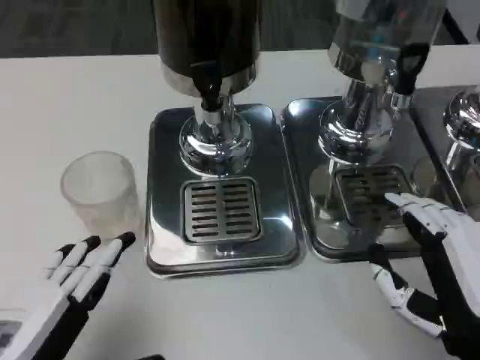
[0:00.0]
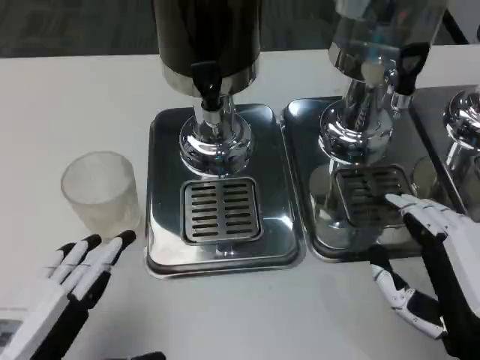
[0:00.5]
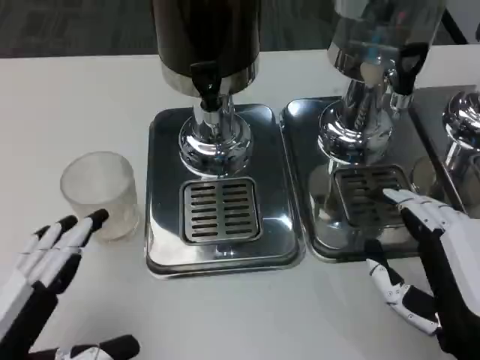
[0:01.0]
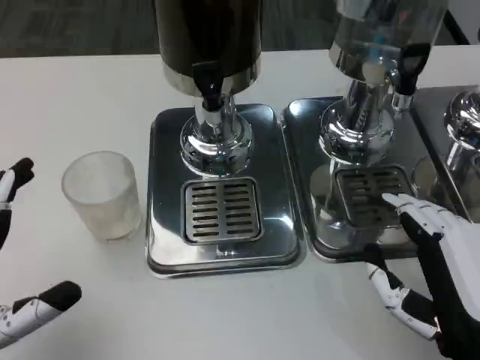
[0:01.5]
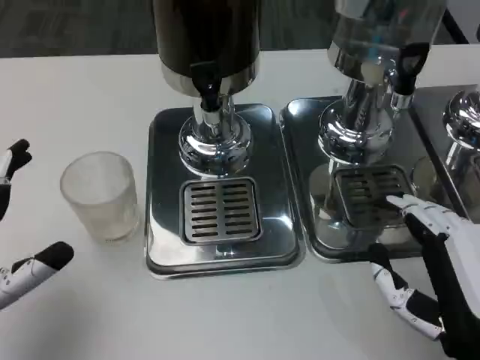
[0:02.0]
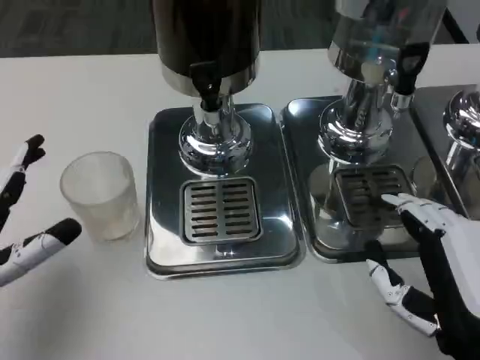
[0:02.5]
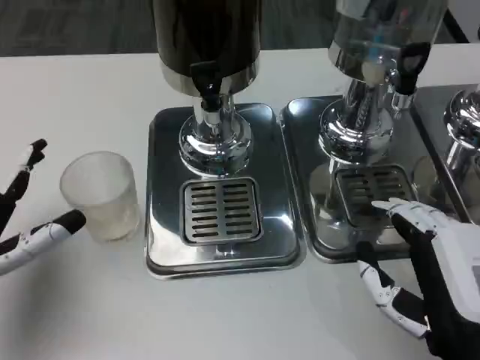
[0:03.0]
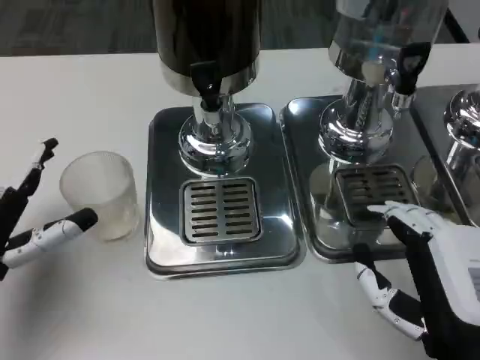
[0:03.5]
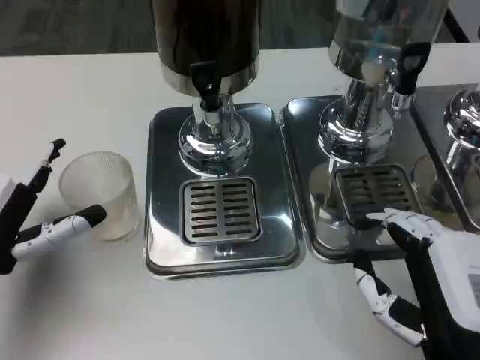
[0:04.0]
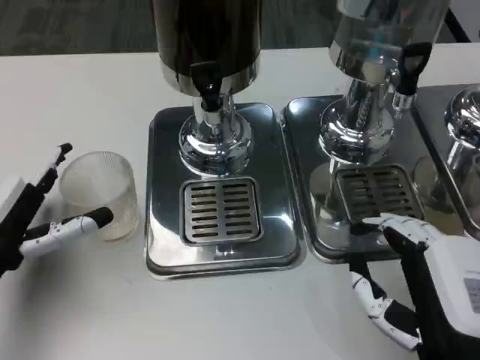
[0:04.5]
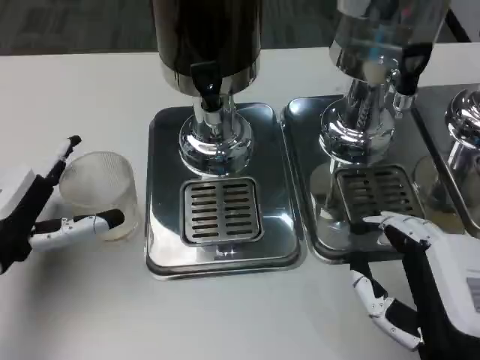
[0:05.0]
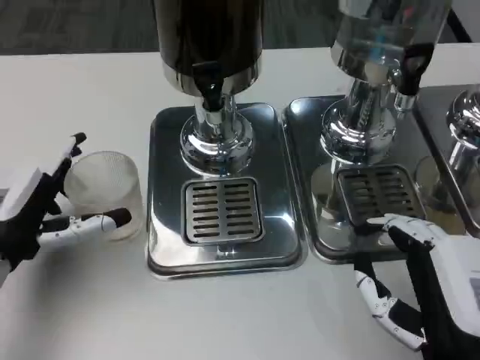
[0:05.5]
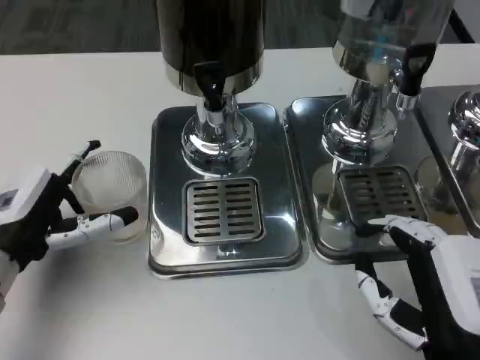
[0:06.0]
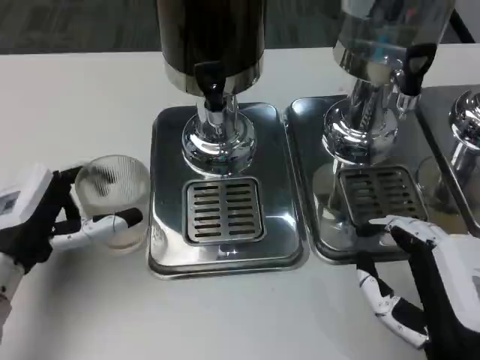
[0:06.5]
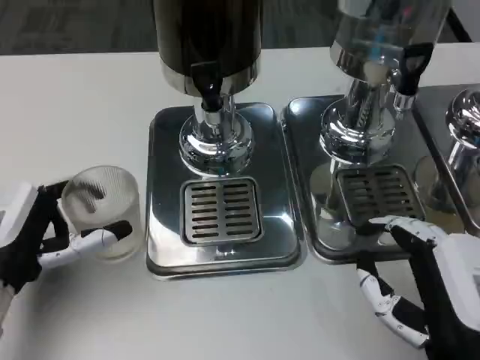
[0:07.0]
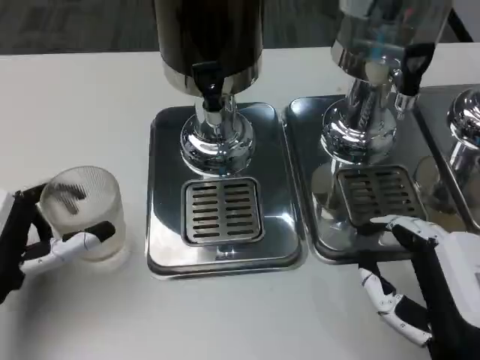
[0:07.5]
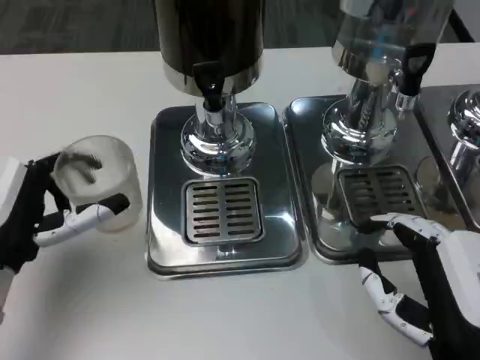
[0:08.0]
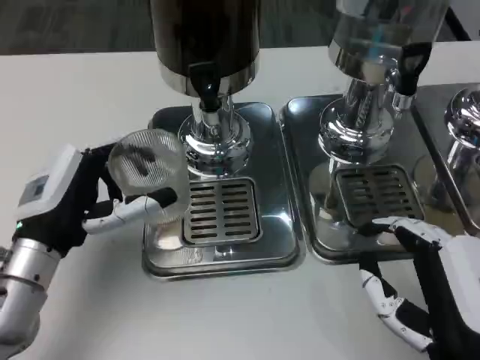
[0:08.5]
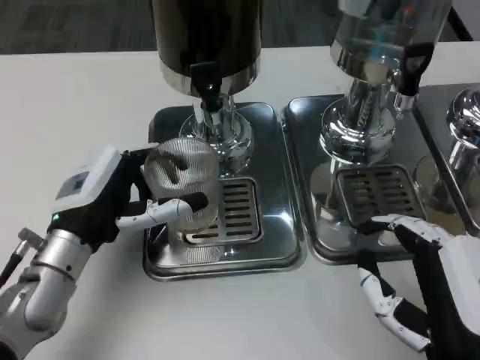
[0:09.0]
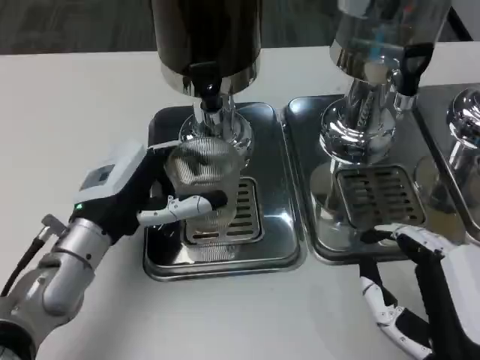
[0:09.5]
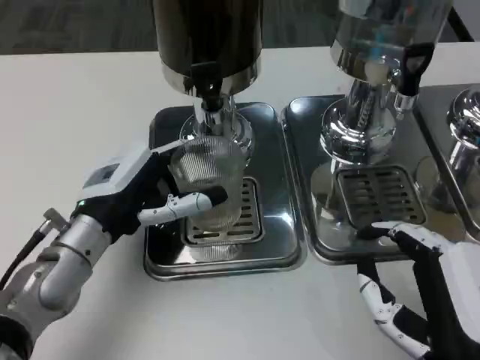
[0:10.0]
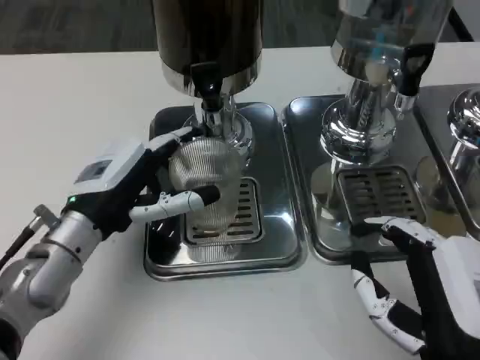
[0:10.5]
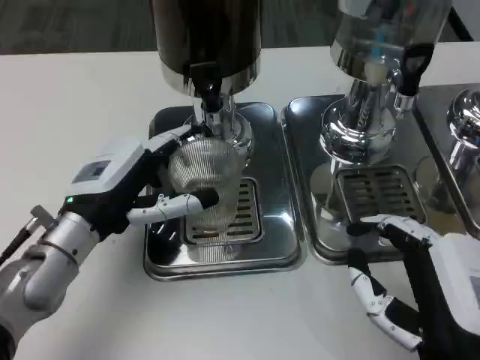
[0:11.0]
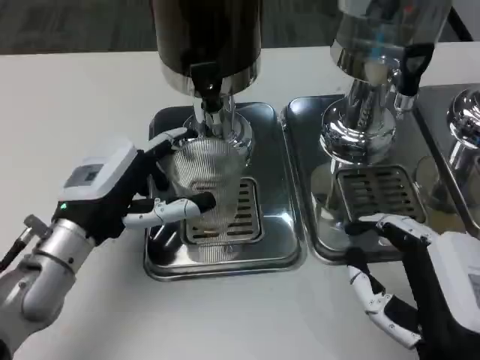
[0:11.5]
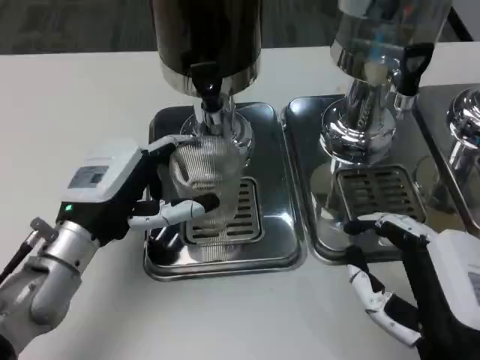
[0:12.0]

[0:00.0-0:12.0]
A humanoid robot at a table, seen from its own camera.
Task of the whole recording: Grasp the cup under the faucet to collect the drink, then remove the cup.
0:00.0 to 0:02.0: The left hand heads forward, covering some 5 cm.
0:02.0 to 0:04.0: The left hand shifts about 10 cm forward.
0:06.0 to 0:08.0: The hands stay close to where they were, moving slightly.
0:08.0 to 0:10.0: The left hand goes roughly 10 cm to the right and forward.
0:10.0 to 0:12.0: The hands stay close to where they were, moving slightly.

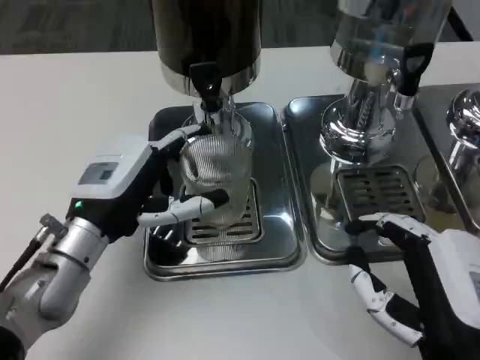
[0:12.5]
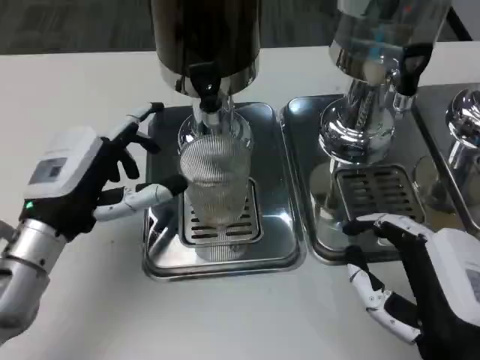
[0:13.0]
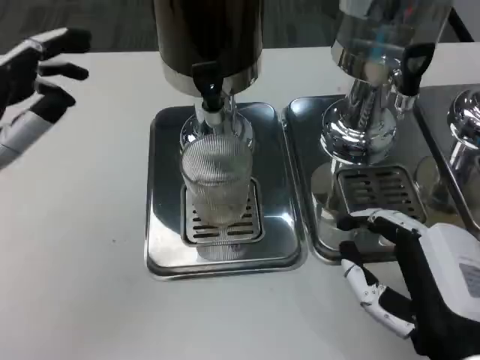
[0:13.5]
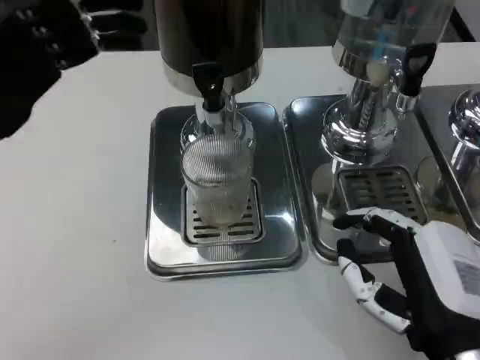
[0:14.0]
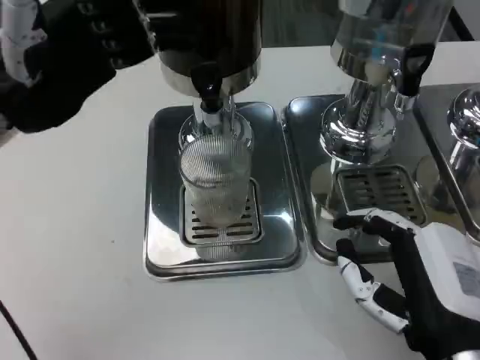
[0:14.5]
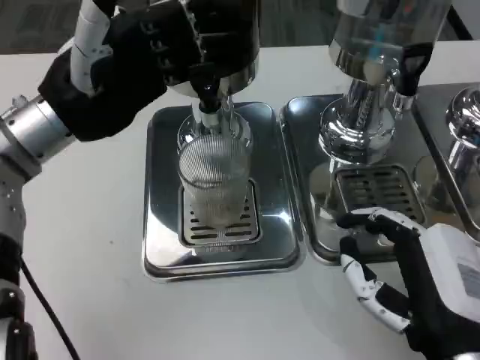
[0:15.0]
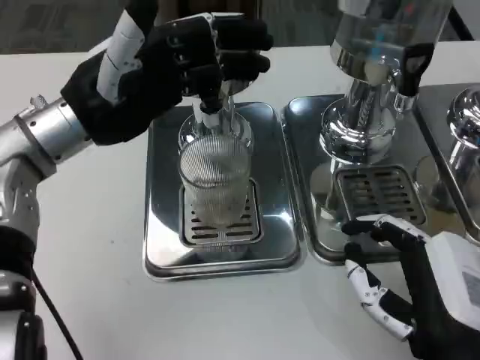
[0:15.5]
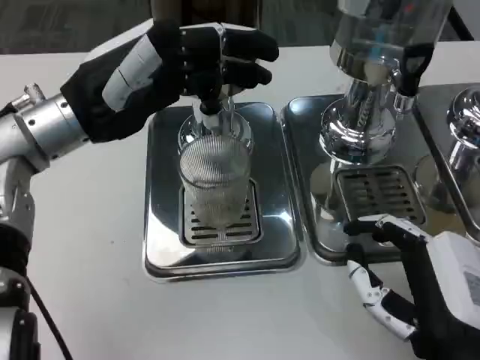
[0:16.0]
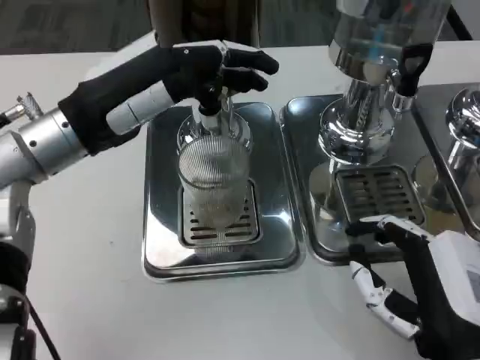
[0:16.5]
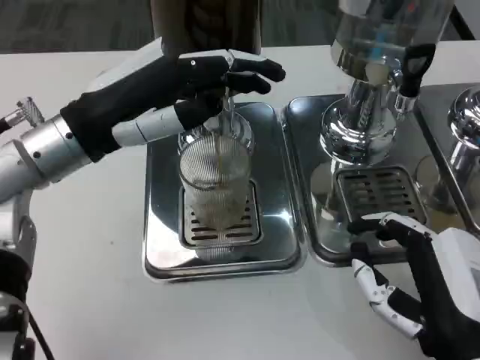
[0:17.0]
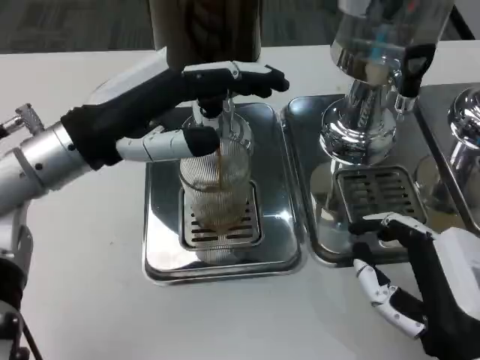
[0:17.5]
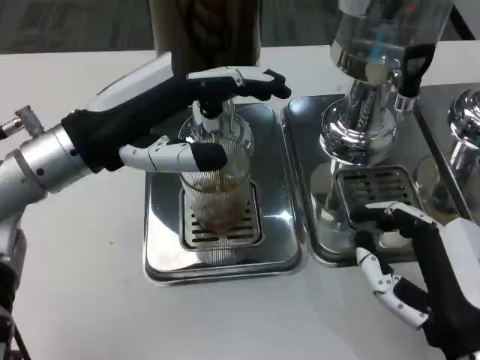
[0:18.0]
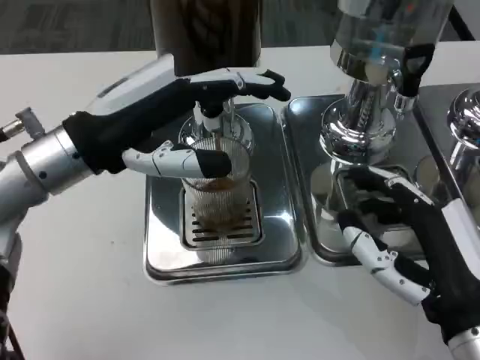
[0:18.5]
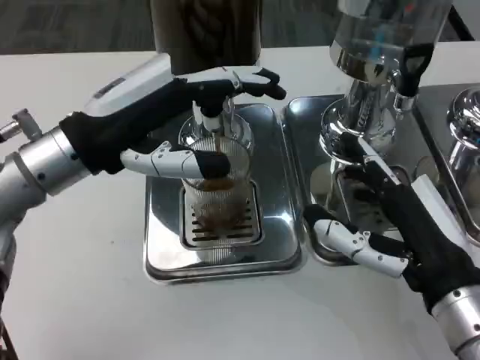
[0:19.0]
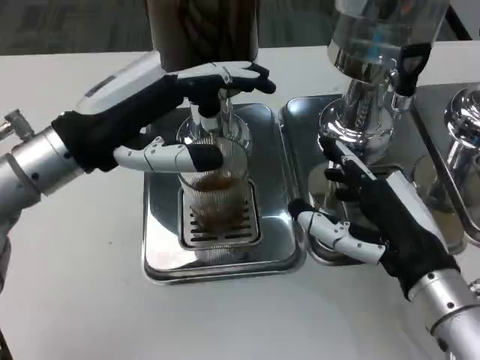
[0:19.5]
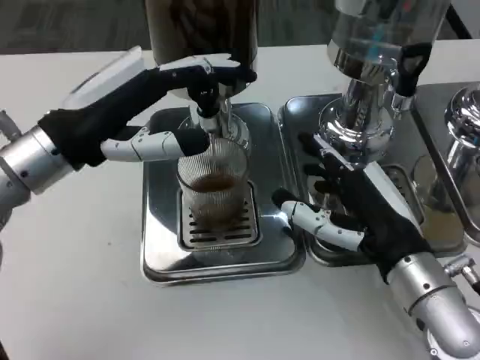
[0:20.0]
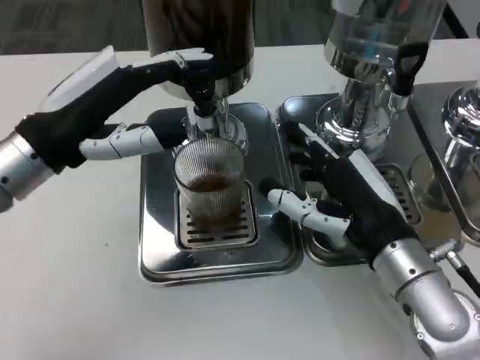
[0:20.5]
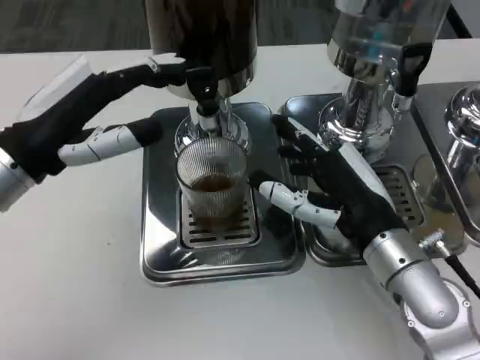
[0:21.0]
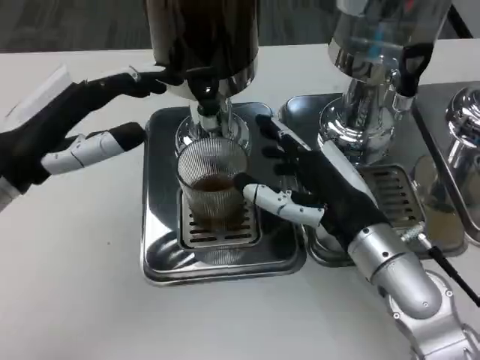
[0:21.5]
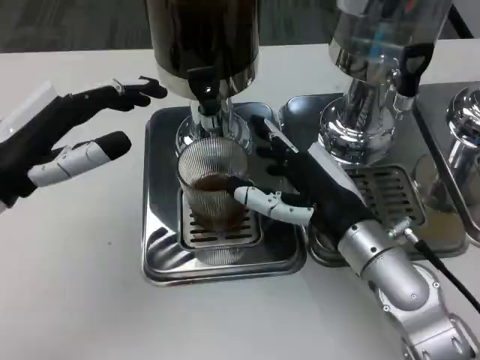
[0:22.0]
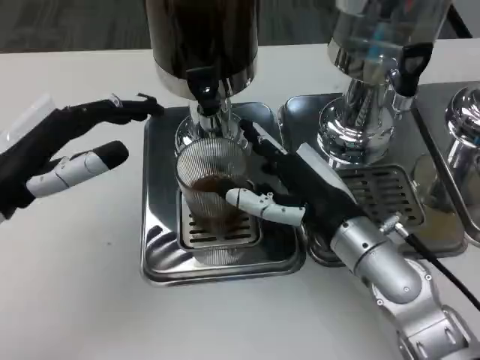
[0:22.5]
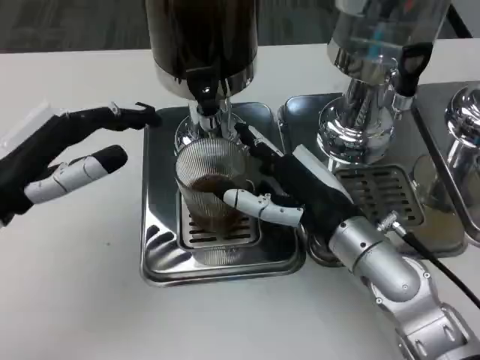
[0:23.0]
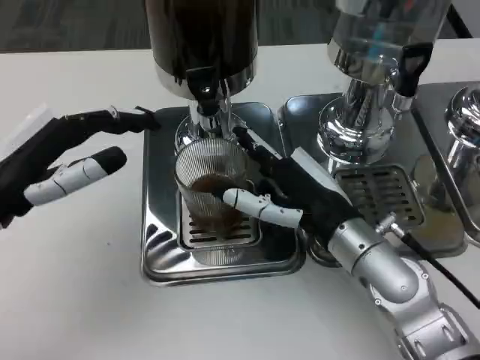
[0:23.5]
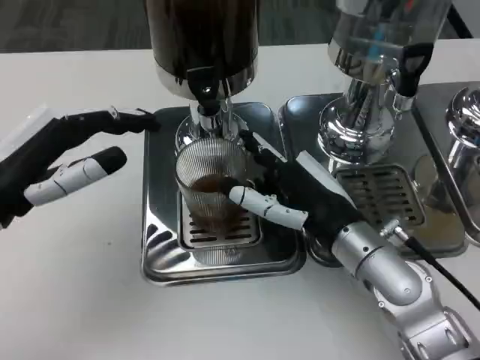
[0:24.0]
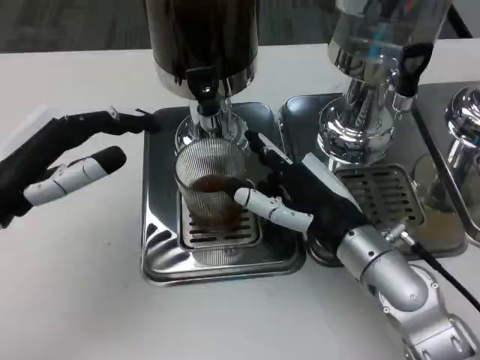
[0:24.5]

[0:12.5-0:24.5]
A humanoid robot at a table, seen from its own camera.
Task of the whole recording: Grasp the cup under the faucet to collect the drink, then remove the cup.
0:12.5 to 0:14.5: The left hand heads upward and to the left, covering approximately 15 cm.
0:14.5 to 0:16.5: The left hand shifts by roughly 5 cm.
0:18.5 to 0:20.5: The right hand heads forward, covering approximately 10 cm.
0:20.5 to 0:22.5: The left hand changes place by roughly 5 cm.
0:22.5 to 0:24.5: The two hands keep their place.

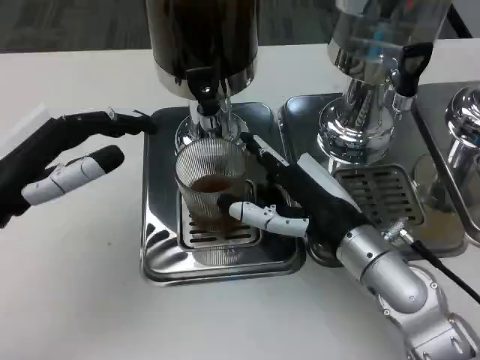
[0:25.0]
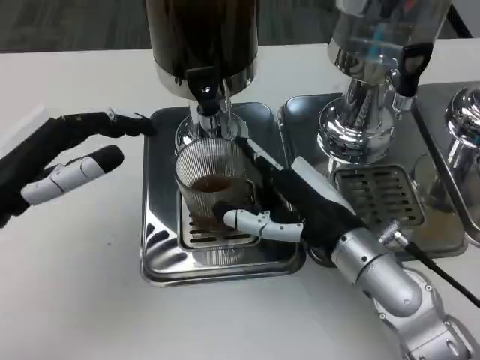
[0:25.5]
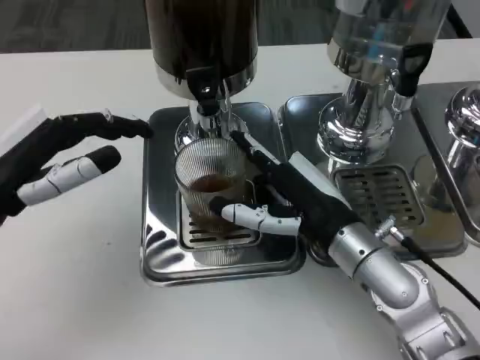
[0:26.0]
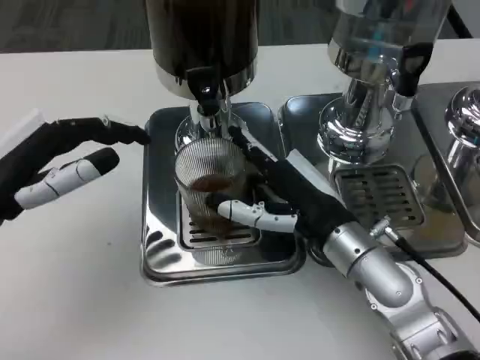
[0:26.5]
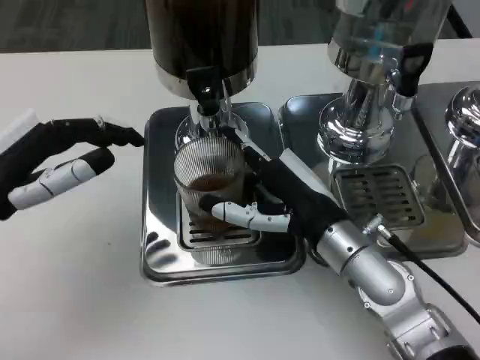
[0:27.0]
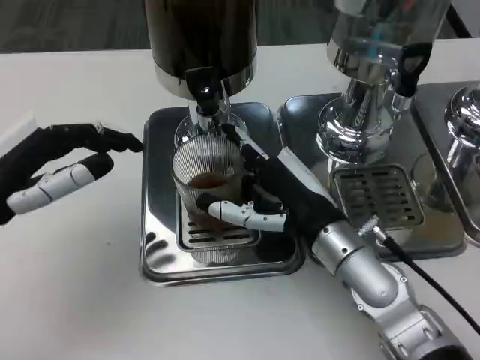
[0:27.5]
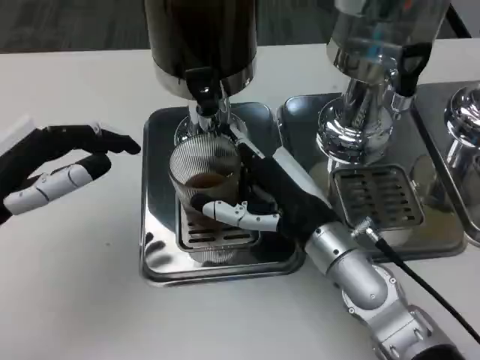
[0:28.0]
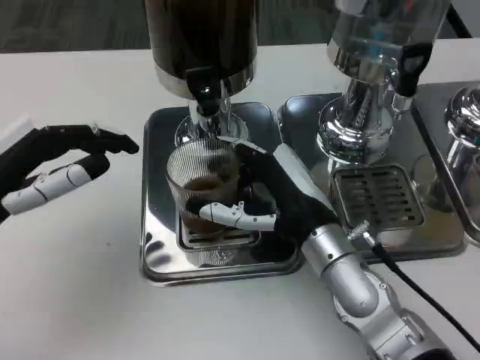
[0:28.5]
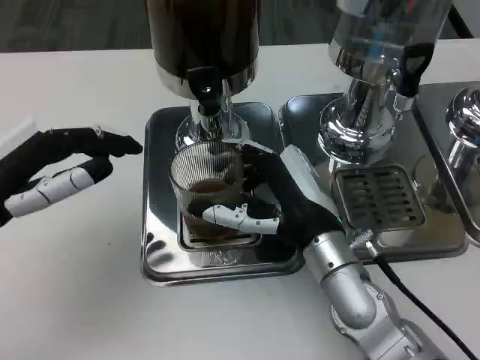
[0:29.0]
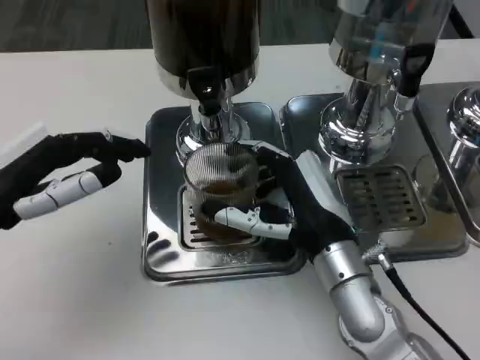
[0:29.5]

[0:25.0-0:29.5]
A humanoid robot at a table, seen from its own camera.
Task of the whole recording: Grasp the cup under the faucet to collect the drink, then remove the cup.
0:25.0 to 0:29.5: The hands stay close to where they were, moving slightly.
